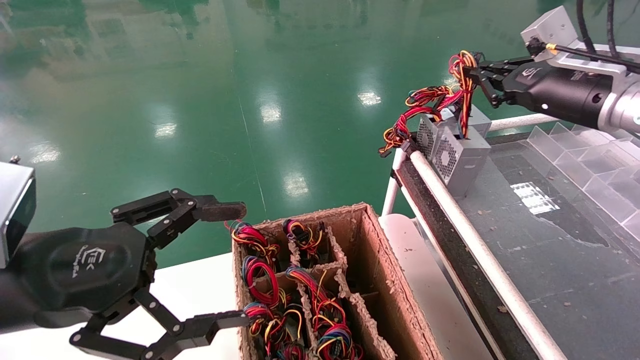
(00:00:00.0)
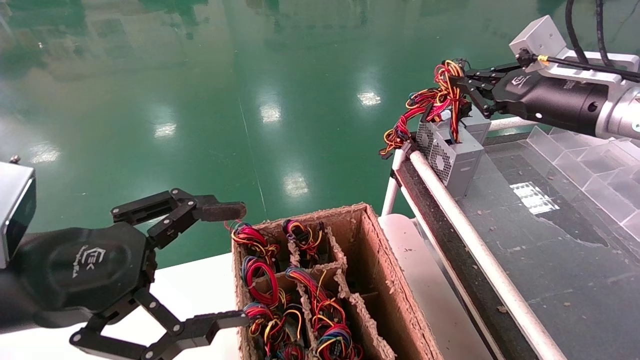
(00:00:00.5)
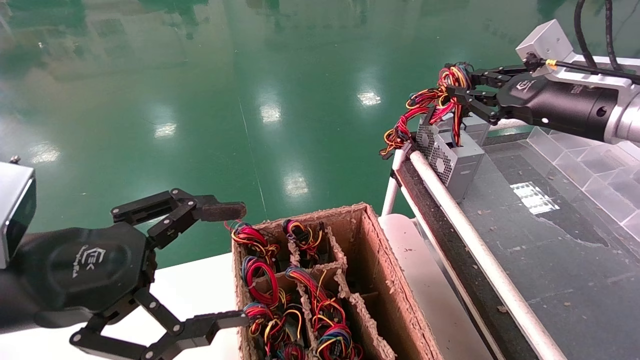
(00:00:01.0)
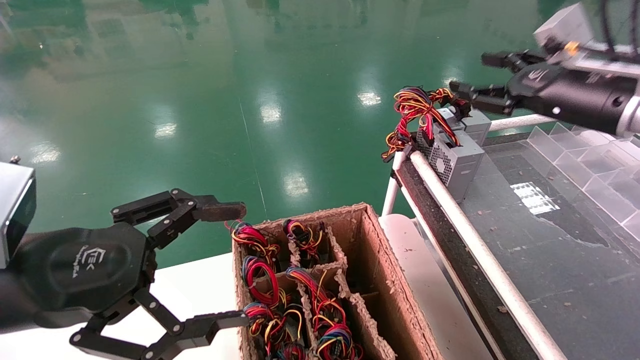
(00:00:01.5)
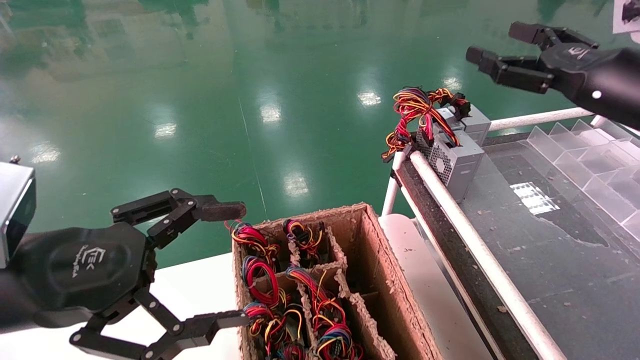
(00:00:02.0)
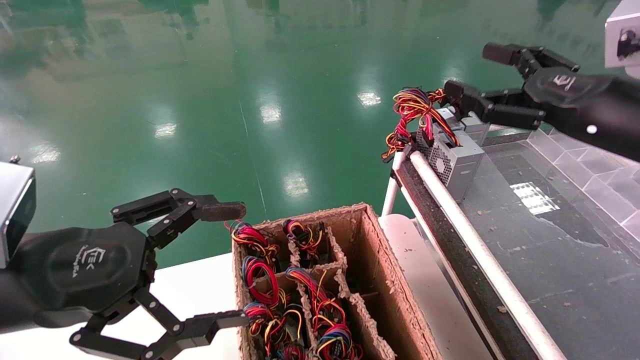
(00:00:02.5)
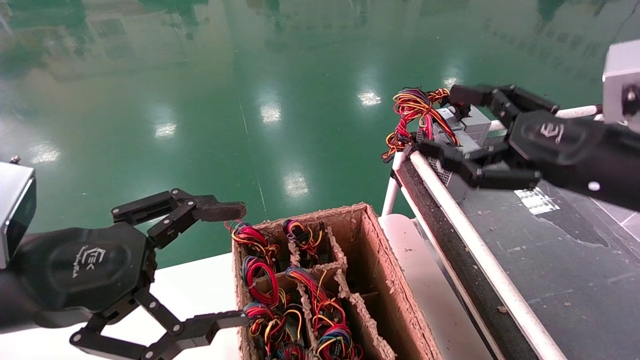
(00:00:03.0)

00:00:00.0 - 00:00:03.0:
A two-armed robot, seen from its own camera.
00:00:00.0 - 00:00:01.5: The right gripper opens up.
00:00:01.5 - 00:00:03.0: The right gripper is displaced backward and downward by some 15 cm, and opens up.

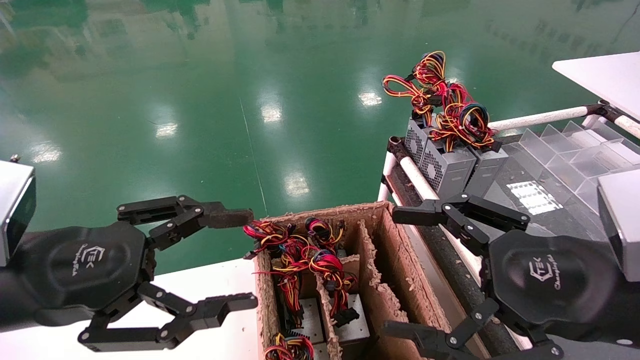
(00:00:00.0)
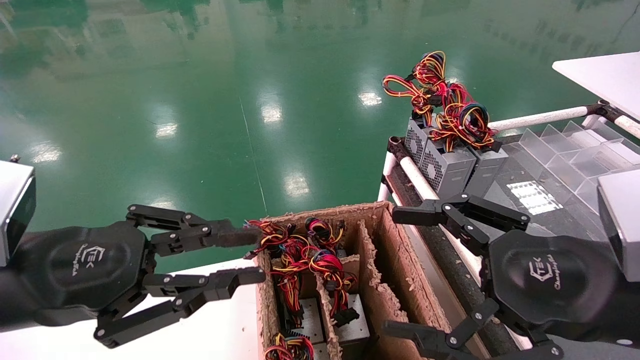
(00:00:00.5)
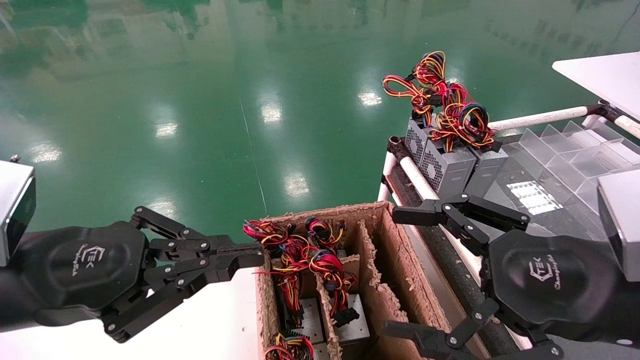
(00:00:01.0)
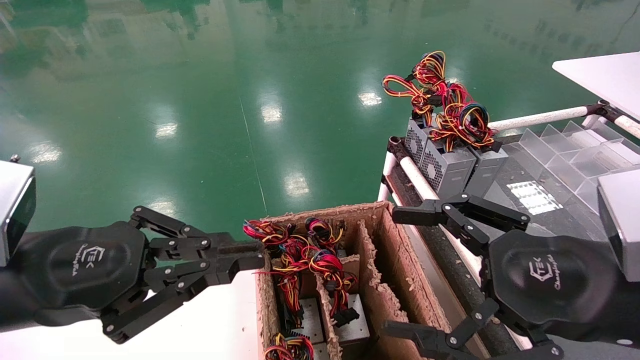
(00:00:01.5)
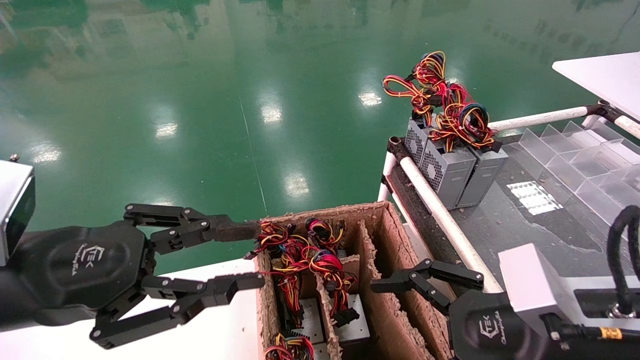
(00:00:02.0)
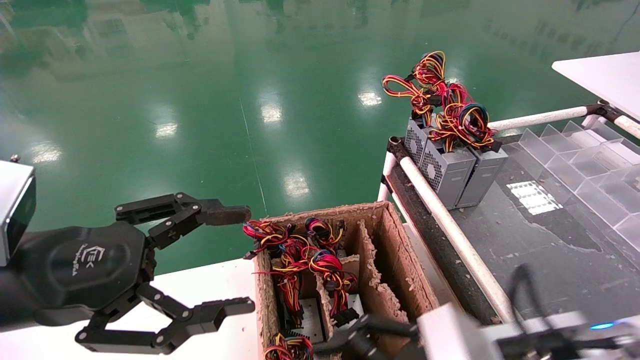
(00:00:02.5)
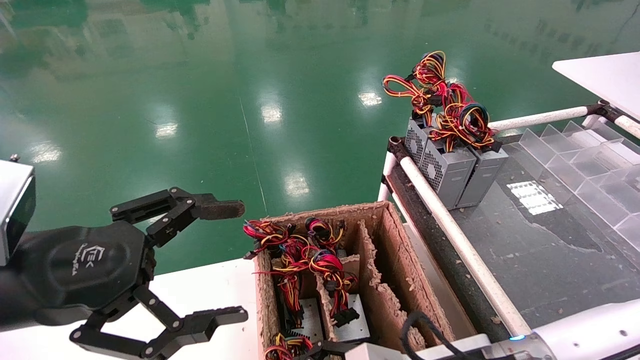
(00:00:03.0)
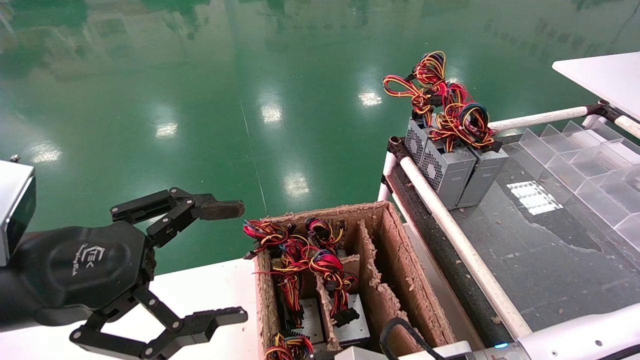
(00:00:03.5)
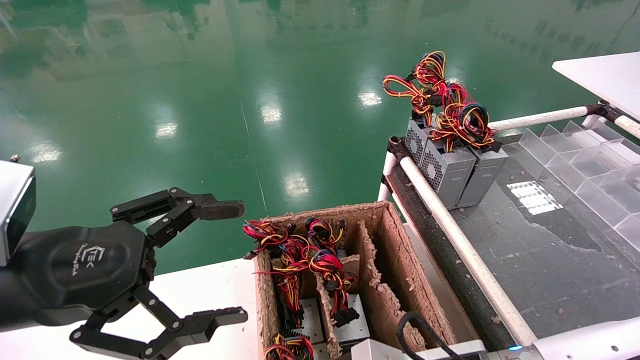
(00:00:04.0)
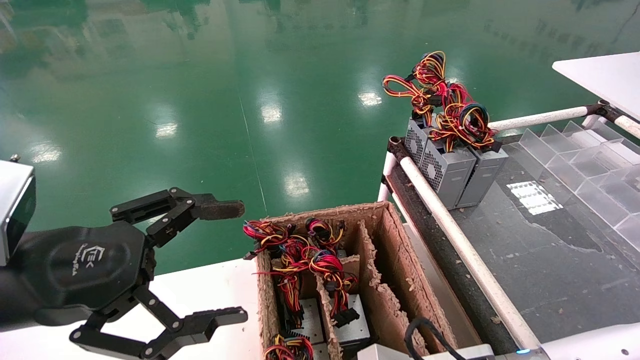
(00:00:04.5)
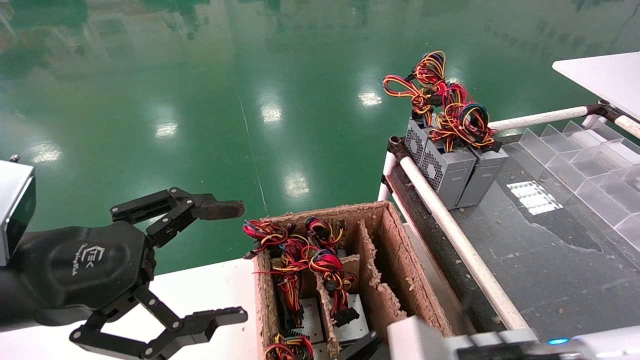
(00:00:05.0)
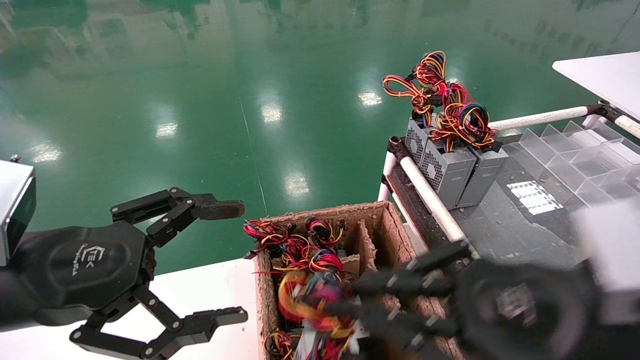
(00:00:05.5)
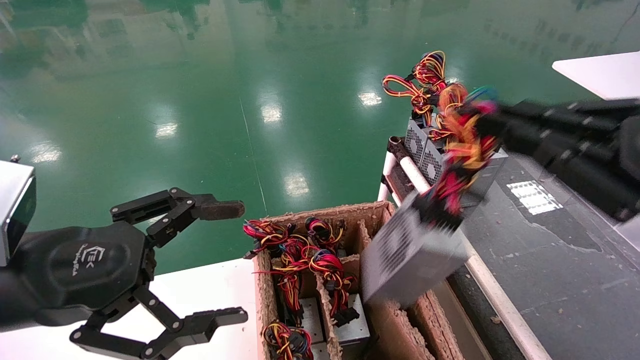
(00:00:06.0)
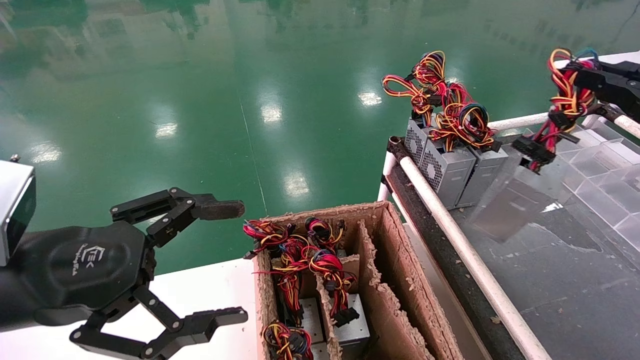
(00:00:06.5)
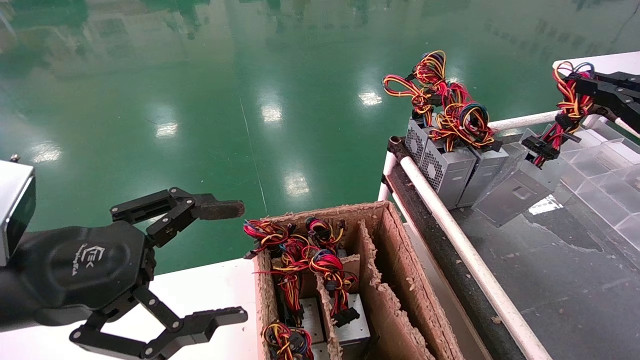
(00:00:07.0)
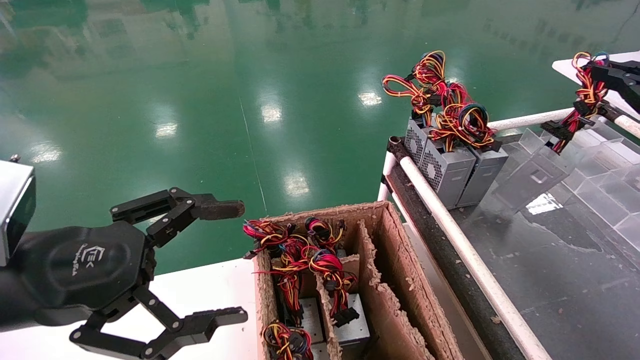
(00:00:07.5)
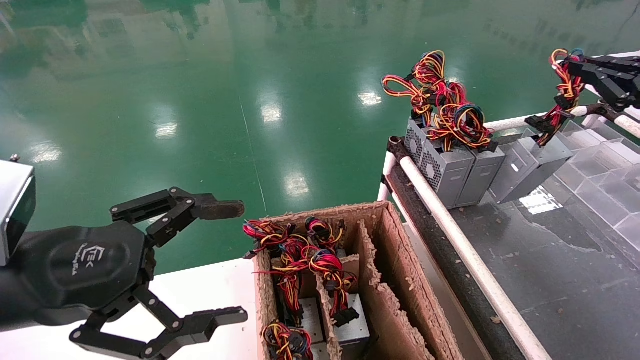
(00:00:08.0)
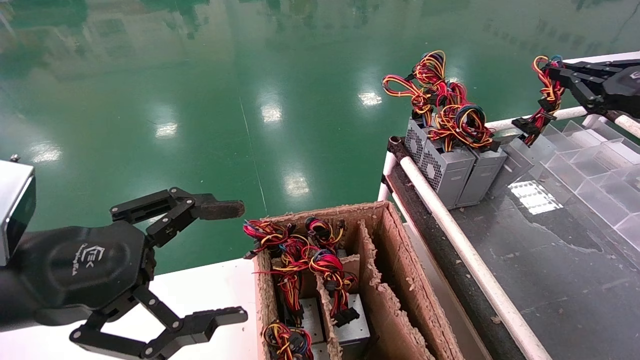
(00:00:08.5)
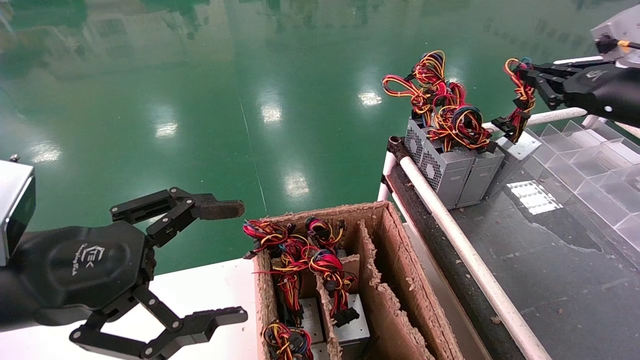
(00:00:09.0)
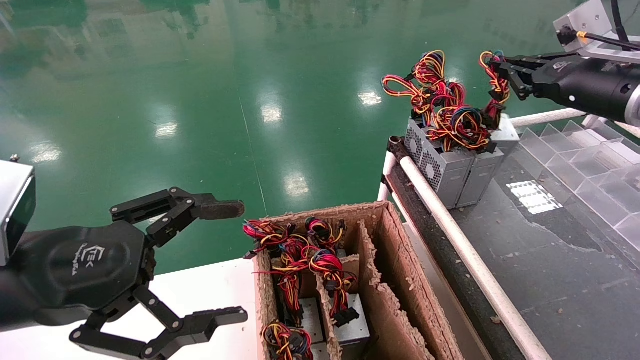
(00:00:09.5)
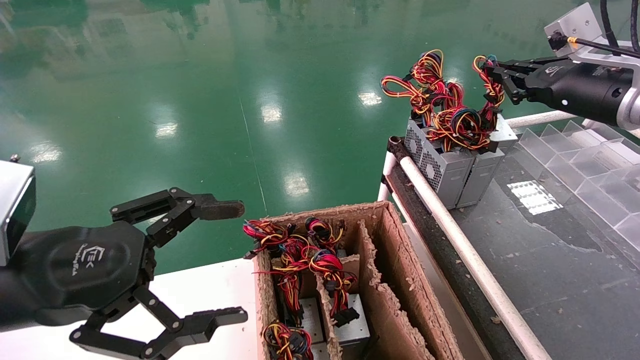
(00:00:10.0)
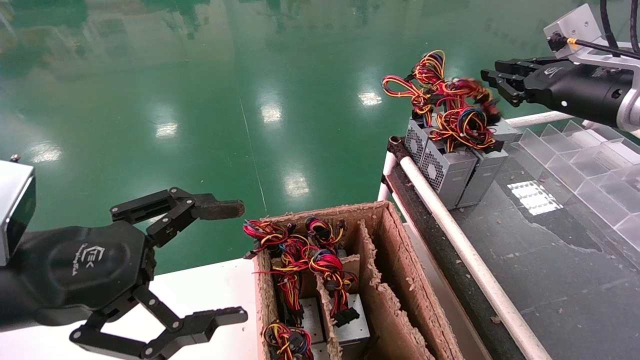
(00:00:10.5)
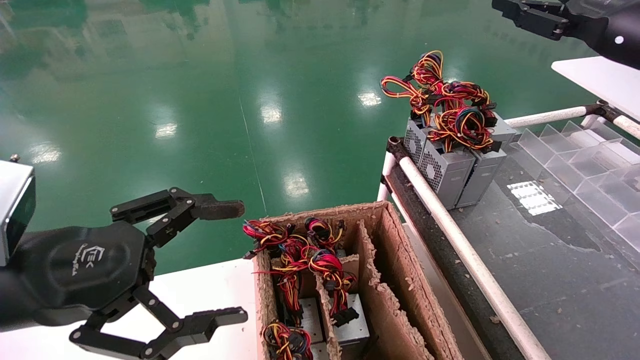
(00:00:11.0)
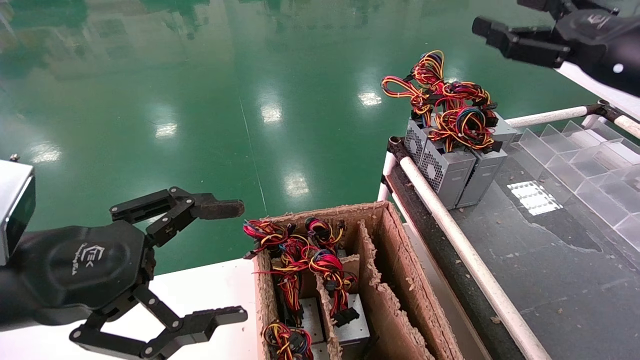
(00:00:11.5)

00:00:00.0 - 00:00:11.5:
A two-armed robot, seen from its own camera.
Step, 00:00:01.0 - 00:00:04.0: Grab and lift the power supply from the large box.
Step, 00:00:04.5 - 00:00:10.0: Place the power supply on the operating table.
00:00:00.0 - 00:00:02.0: The left gripper closes.
00:00:02.0 - 00:00:04.0: The right gripper travels downward and to the left by some 15 cm, and closes up; the left gripper opens its fingers.
00:00:04.0 - 00:00:06.0: The right gripper is displaced upward and to the right by approximately 30 cm, and closes up.
00:00:06.0 - 00:00:07.5: The right gripper goes some 20 cm to the right and forward.
00:00:07.5 - 00:00:09.5: The right gripper moves forward and to the left, approximately 15 cm.
00:00:09.5 - 00:00:11.5: The right gripper goes about 5 cm backward, and opens.
